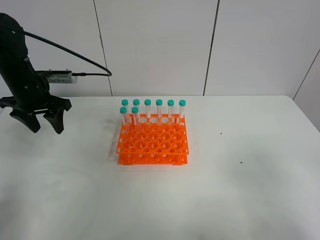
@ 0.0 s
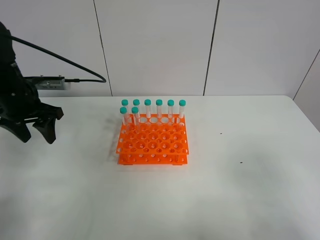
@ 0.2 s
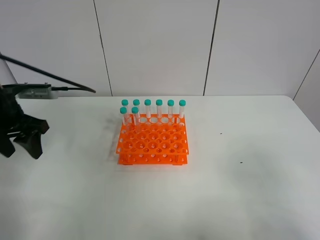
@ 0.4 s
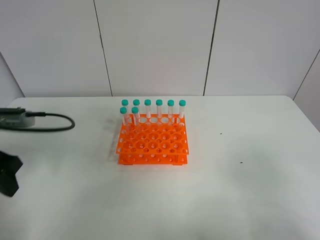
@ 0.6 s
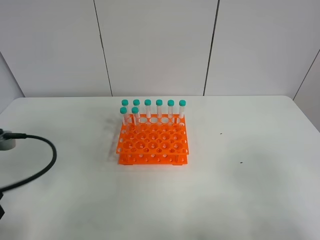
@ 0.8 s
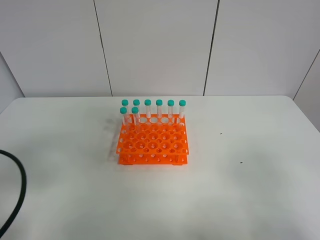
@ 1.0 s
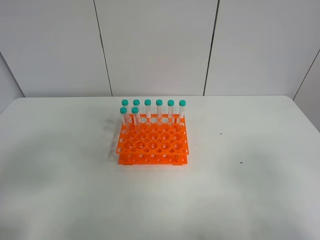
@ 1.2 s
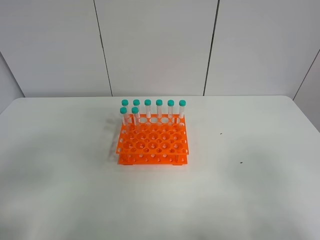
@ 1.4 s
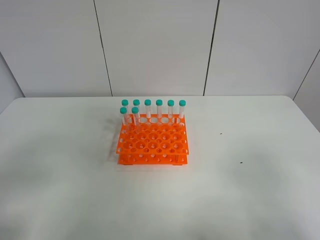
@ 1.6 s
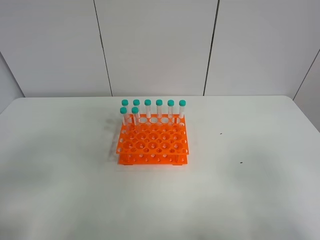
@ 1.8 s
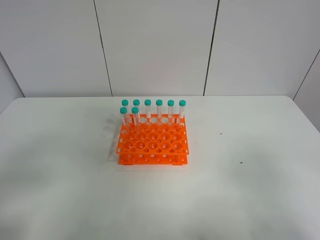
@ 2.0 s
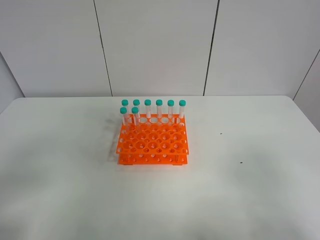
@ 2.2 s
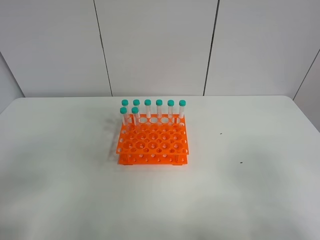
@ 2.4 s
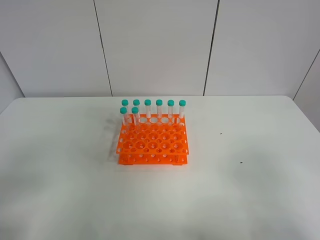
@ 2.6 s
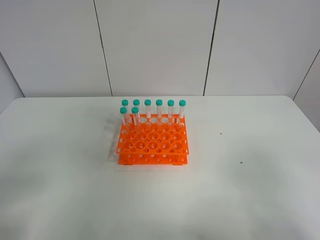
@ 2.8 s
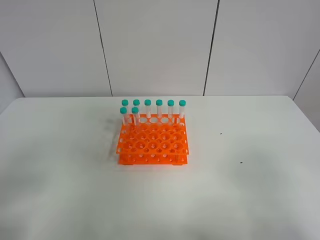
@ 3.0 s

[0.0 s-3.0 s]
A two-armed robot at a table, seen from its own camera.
Task of the whole recording: Put the test tube on the table back onto the test tube rack.
0.0 to 1.6 s: The left gripper moves backward, some 35 cm.
